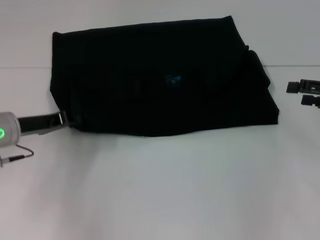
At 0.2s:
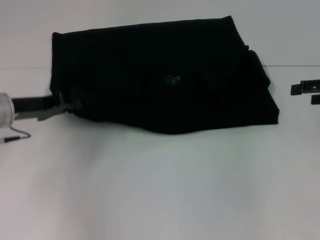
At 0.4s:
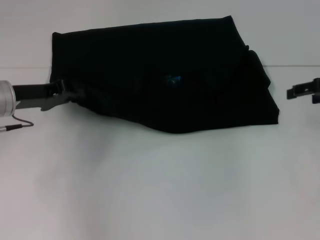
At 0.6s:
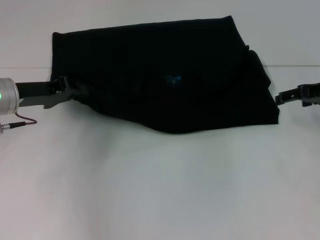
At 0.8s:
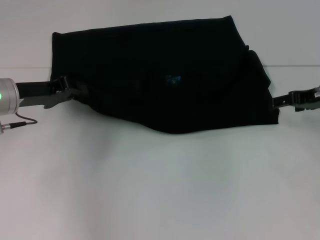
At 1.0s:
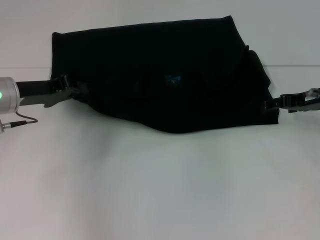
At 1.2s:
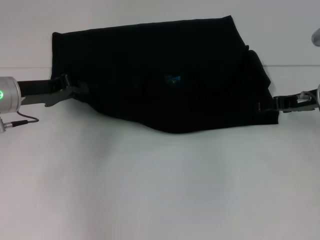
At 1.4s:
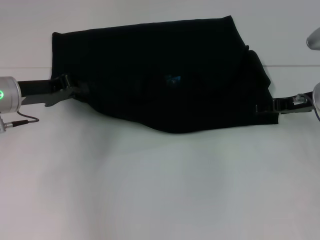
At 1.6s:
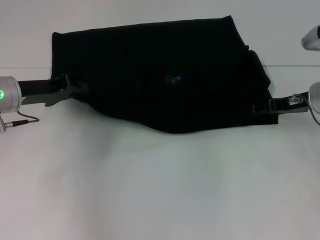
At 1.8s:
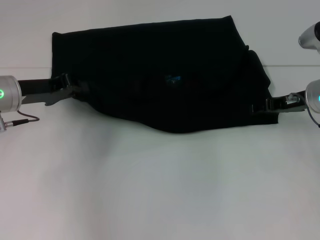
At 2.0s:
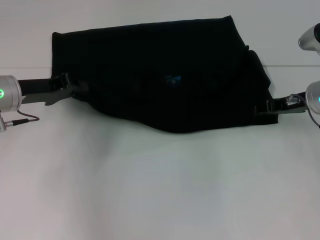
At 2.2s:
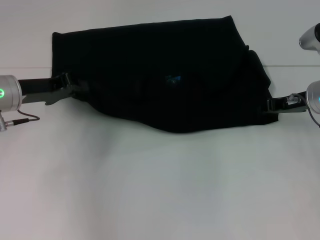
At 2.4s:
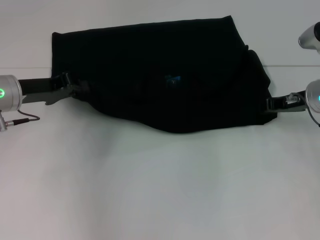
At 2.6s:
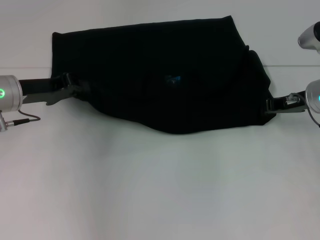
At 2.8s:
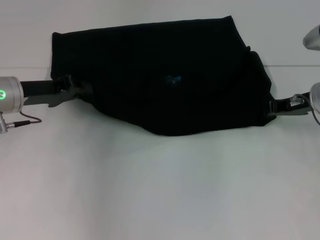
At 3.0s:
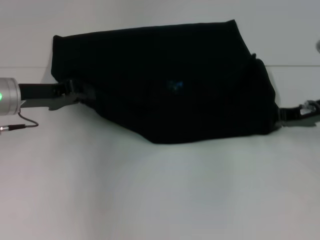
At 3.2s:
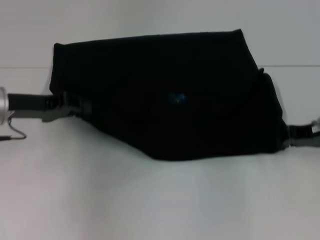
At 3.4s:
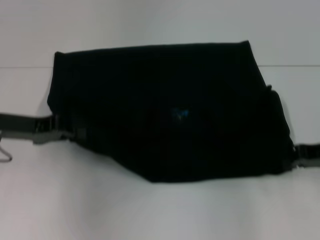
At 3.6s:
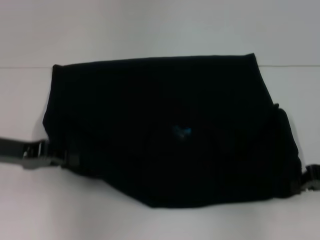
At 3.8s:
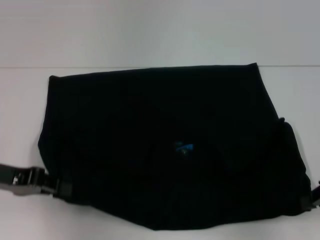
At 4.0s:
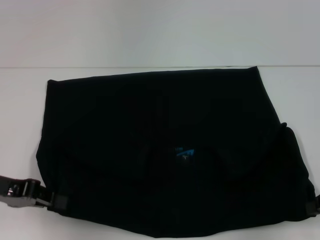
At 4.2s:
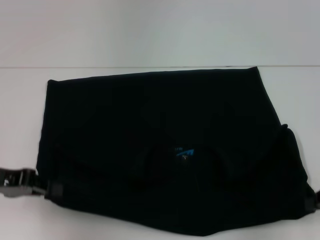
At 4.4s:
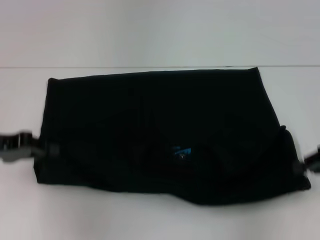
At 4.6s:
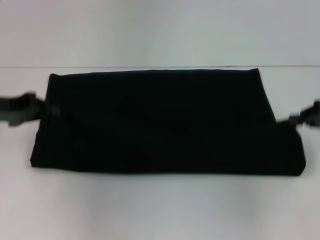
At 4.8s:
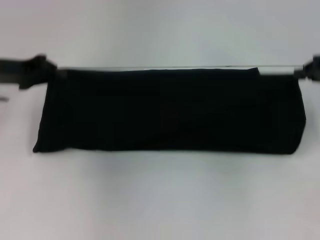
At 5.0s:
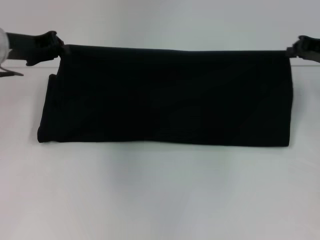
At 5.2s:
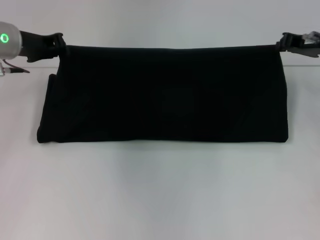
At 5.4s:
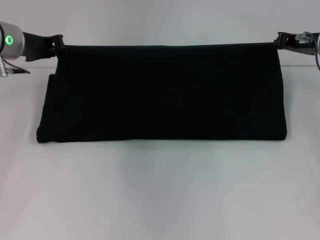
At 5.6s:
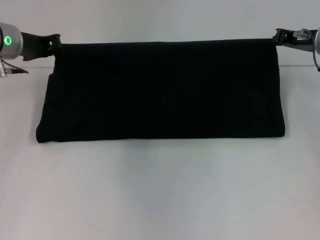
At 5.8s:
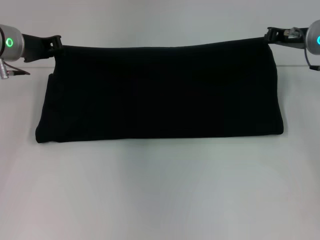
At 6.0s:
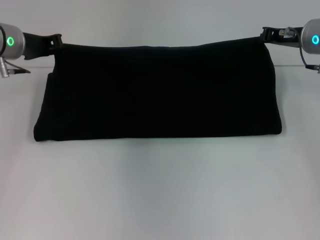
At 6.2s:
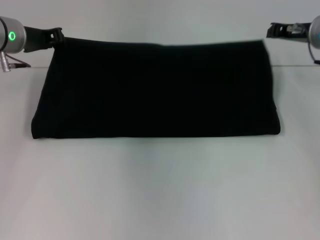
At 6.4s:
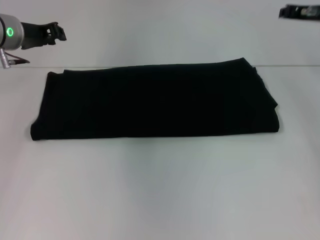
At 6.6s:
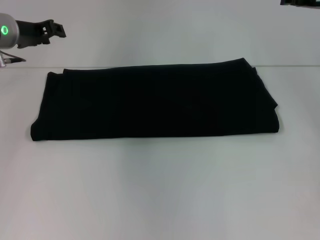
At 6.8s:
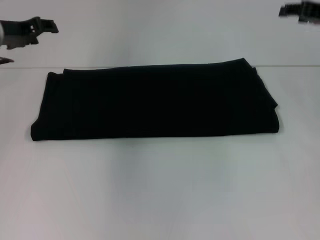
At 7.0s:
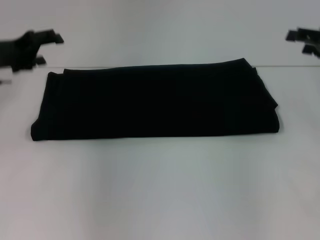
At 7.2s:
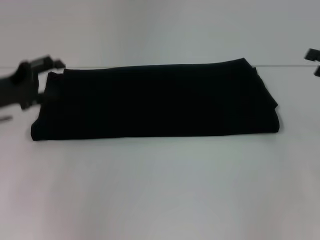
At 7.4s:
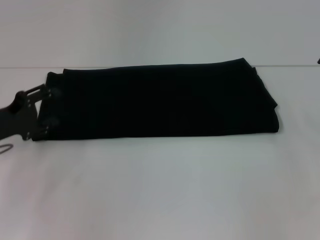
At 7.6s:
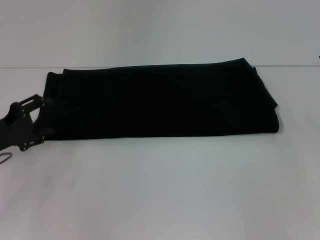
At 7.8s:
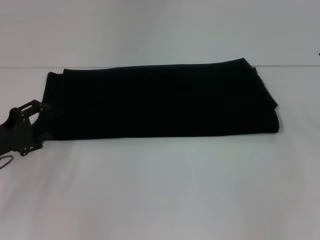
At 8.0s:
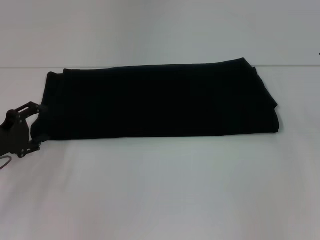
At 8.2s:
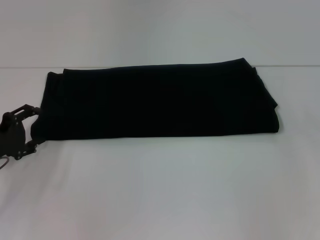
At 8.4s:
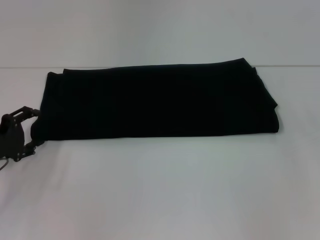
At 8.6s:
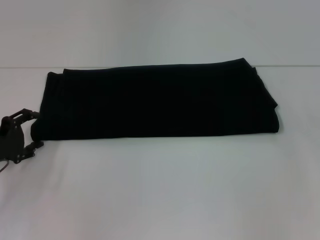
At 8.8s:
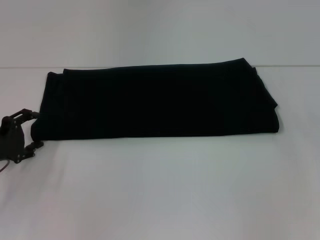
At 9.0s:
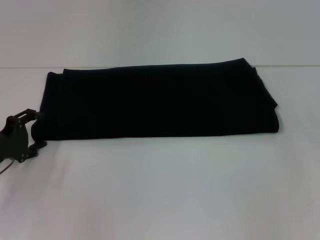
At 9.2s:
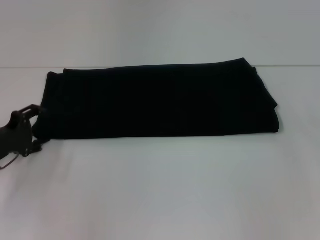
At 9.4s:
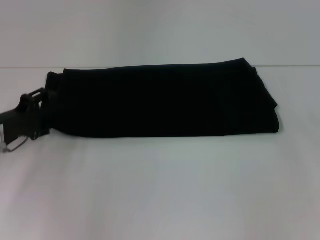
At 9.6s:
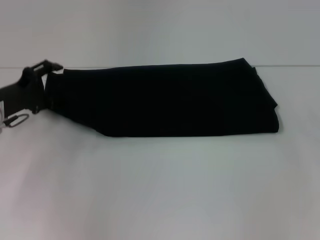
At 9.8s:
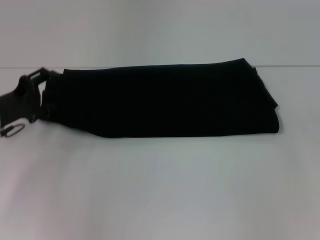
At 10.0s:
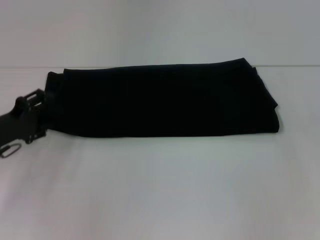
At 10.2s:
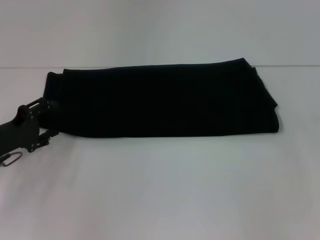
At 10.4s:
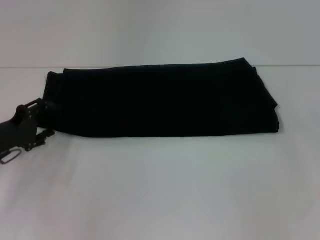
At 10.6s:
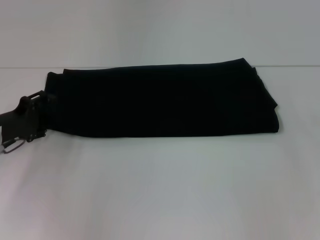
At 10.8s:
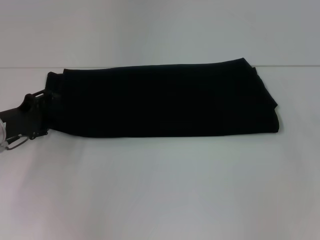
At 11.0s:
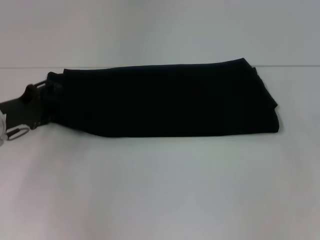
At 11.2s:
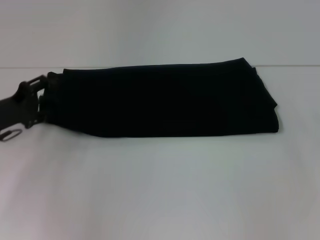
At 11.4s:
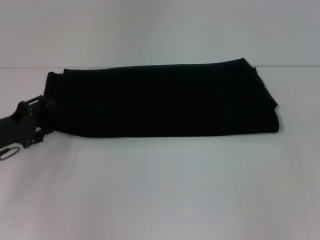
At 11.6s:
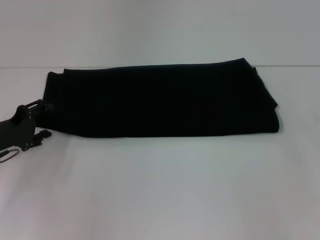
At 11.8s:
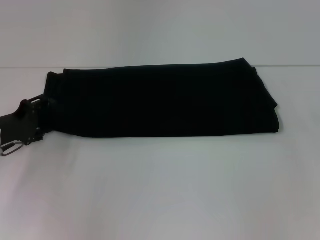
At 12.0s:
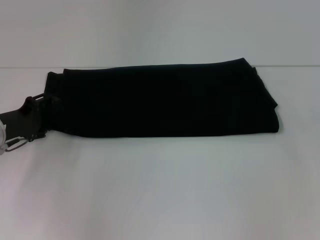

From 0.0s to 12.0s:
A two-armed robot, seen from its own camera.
Step, from 0.0s to 4.0s: Pull the clothes with your left hand.
Step, from 0.0s to 4.0s: Pull the clothes with your right hand.
Step, from 4.2s to 6.4s: Fold the clothes with your right hand.
From 0.0s to 1.6s: The right gripper travels to the left and forward by some 10 cm. Meanwhile the left gripper changes place by roughly 5 cm.
From 1.6s to 3.0s: The right gripper closes its fingers.
From 3.0s to 4.4s: The left gripper moves backward and to the left, some 10 cm, while the right gripper travels backward and to the right by roughly 10 cm.
From 4.4s to 6.0s: The right gripper heads forward and to the left, covering roughly 20 cm, while the left gripper is displaced forward and to the right by approximately 15 cm.
From 6.0s to 7.6s: The left gripper moves backward, downward and to the left, roughly 20 cm, and opens; the right gripper travels to the right and backward by about 20 cm, and opens.
From 7.6s to 9.0s: The grippers stay close to where they were, moving slightly.
From 10.4s to 12.0s: The grippers move only a little.

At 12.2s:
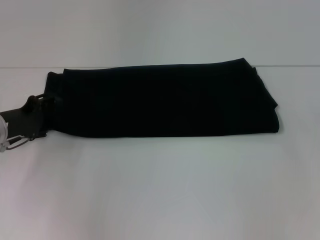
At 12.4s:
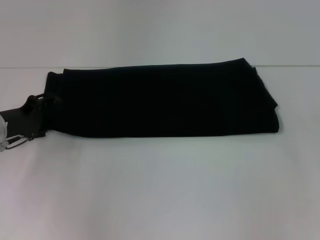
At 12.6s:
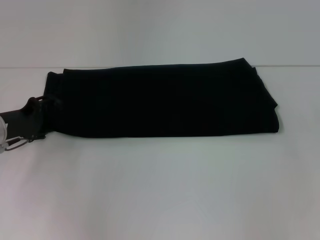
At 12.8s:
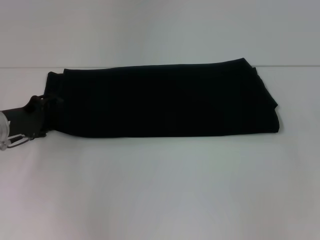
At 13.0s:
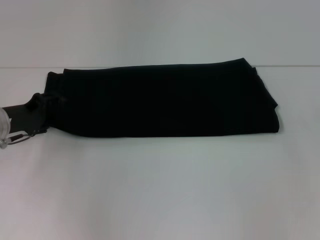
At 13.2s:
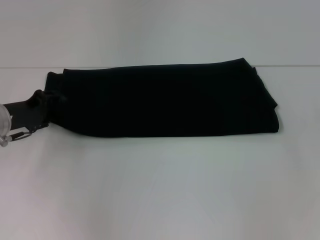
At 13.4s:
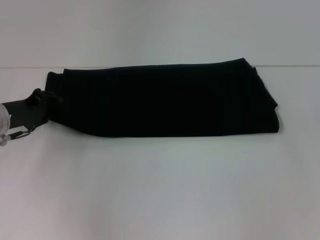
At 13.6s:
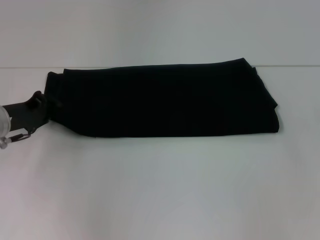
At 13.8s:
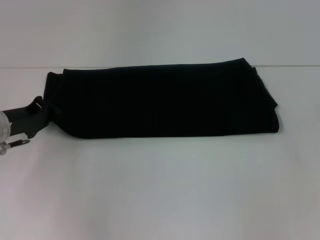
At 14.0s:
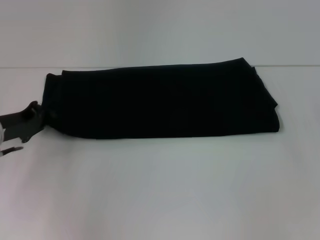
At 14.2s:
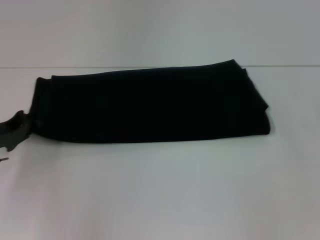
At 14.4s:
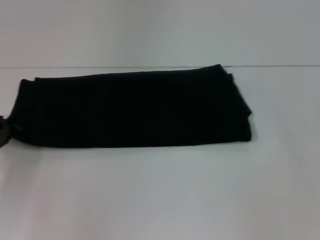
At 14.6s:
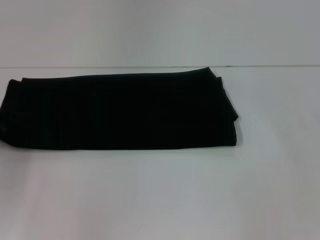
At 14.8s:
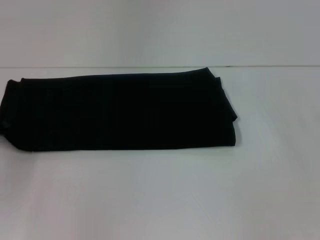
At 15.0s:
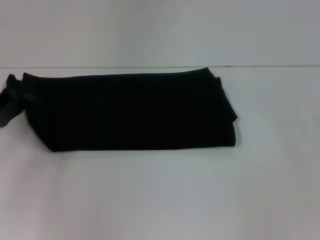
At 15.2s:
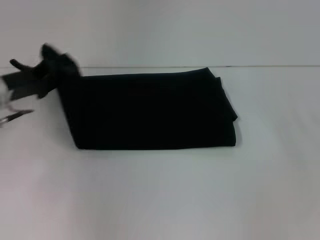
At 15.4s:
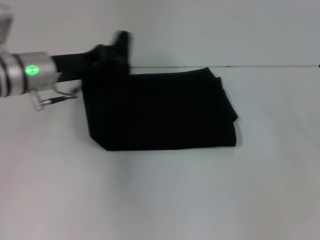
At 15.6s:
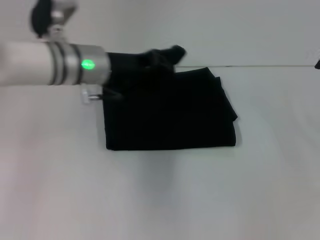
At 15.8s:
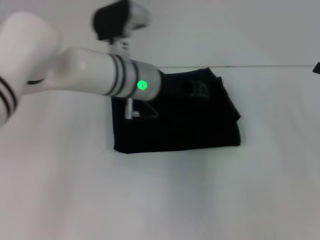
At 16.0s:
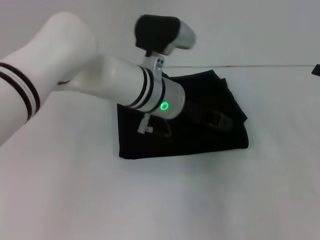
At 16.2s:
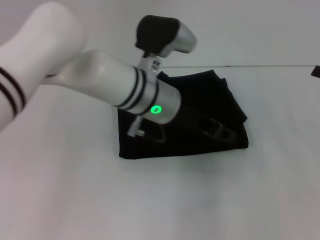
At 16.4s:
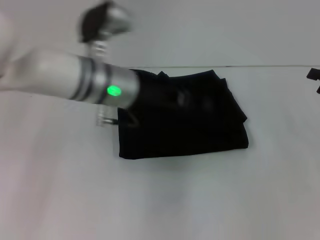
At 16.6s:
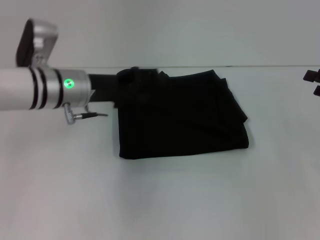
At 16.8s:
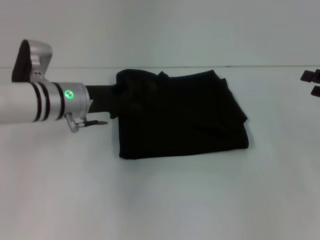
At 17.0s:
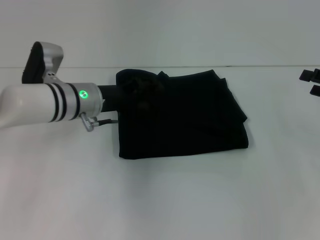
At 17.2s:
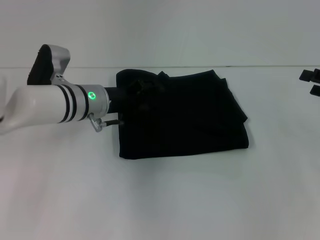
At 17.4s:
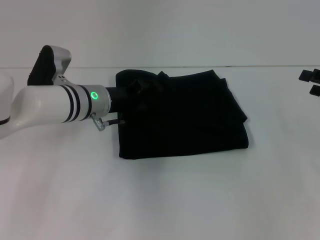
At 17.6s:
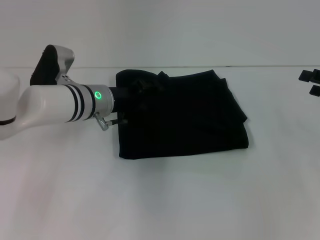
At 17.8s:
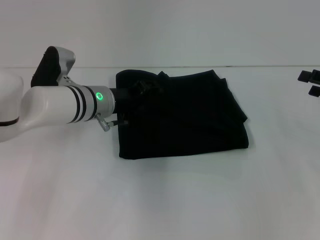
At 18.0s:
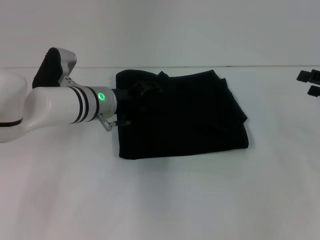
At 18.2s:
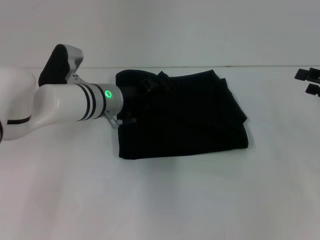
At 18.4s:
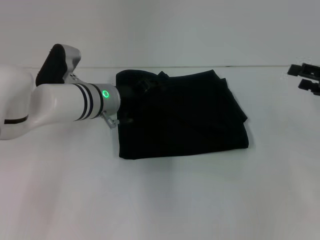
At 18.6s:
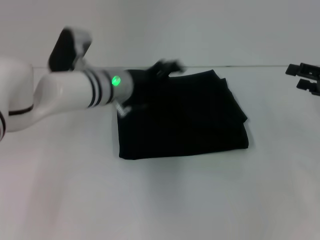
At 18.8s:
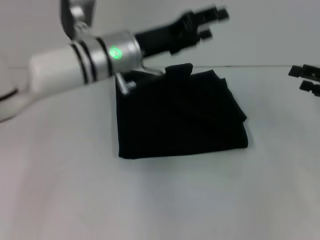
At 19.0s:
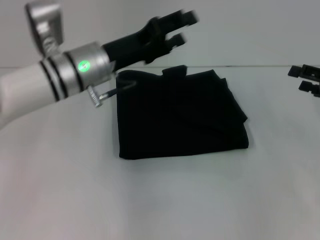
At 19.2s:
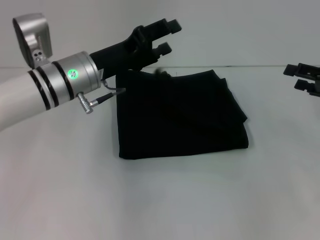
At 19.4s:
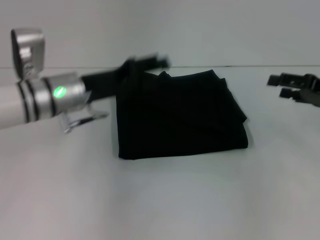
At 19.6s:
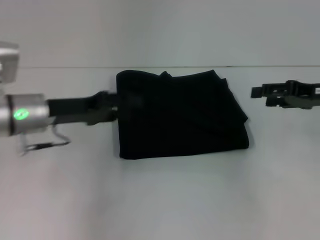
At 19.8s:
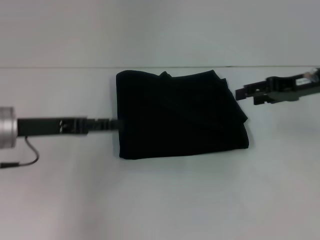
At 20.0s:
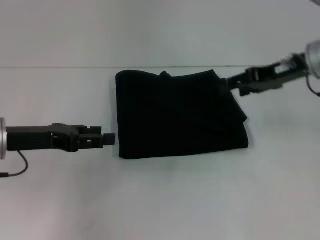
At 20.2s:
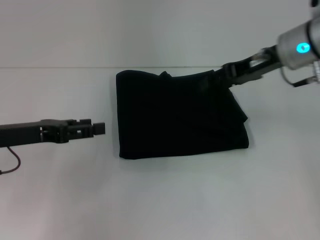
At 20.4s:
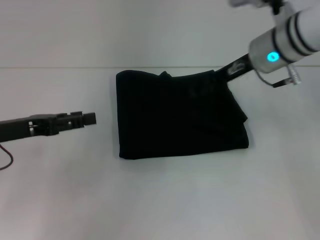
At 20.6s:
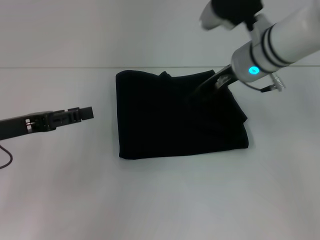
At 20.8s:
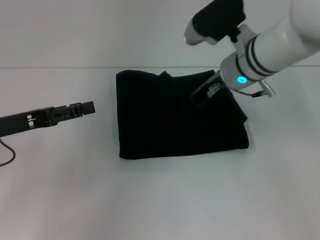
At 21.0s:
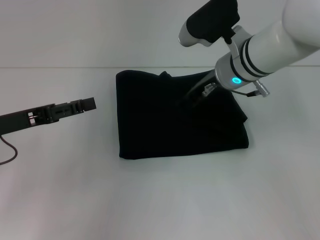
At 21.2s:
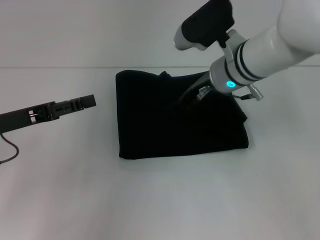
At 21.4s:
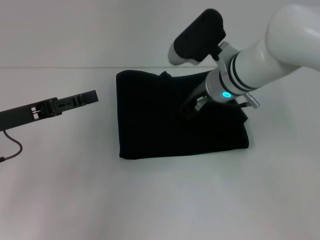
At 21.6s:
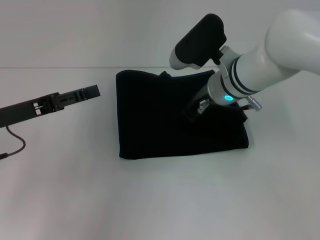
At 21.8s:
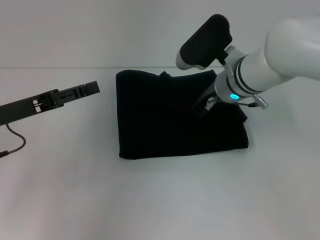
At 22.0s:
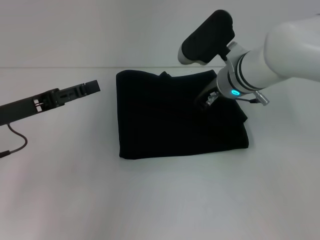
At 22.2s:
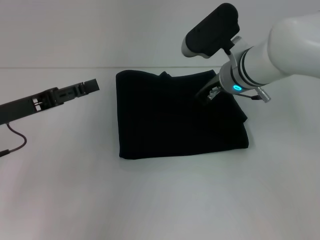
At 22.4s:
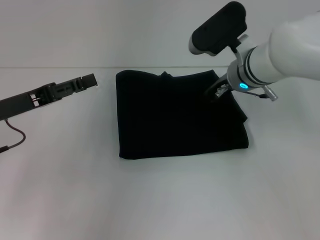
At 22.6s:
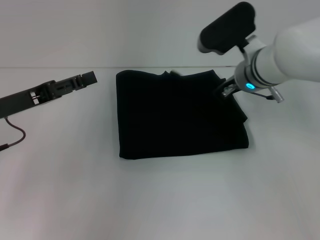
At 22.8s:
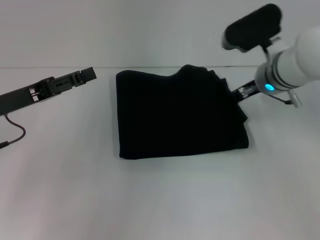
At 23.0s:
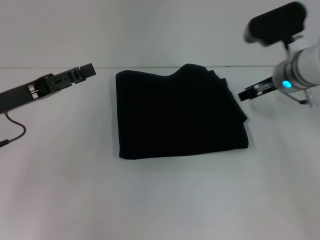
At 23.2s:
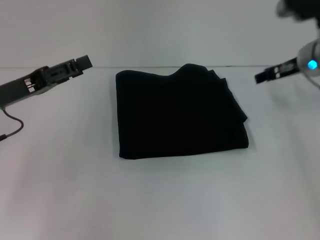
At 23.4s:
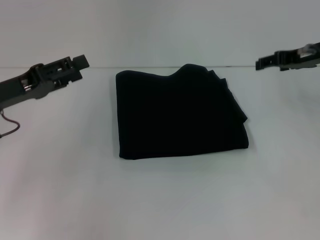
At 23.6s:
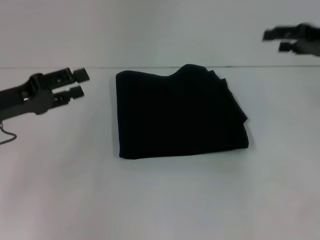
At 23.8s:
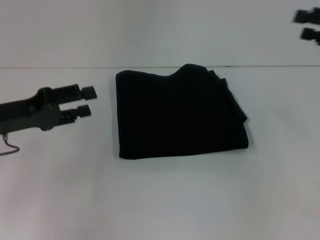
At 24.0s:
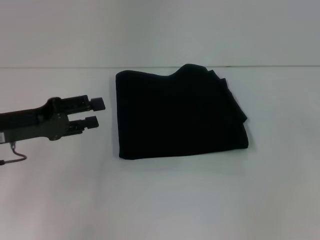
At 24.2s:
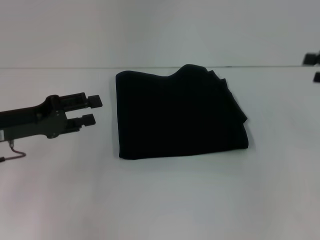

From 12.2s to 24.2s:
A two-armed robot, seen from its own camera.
Step, from 12.2s to 16.4s: Fold the clothes with your left hand.
From 12.2s to 13.8s: The left gripper closes.
From 13.8s to 15.2s: The left gripper shifts roughly 5 cm upward, and reaches some 5 cm to the left, then returns.
From 15.2s to 16.6s: The left gripper goes roughly 10 cm to the right, and opens up.
From 16.6s to 18.2s: The left gripper moves to the right, some 5 cm.
From 18.2s to 19.8s: The right gripper moves to the left, approximately 10 cm, while the left gripper heads to the left and backward, covering about 15 cm.
From 19.8s to 21.2s: The right gripper moves to the left, roughly 20 cm.
From 21.2s to 22.6s: There are only small adjustments of the grippers.
From 22.6s to 24.2s: The right gripper moves to the right, approximately 25 cm.
